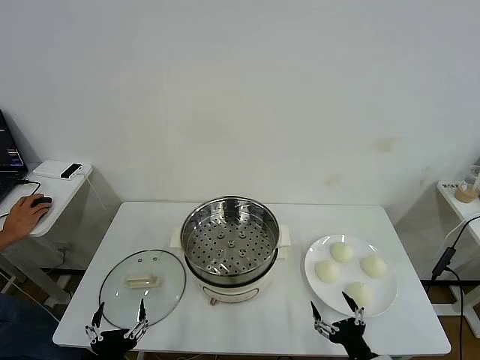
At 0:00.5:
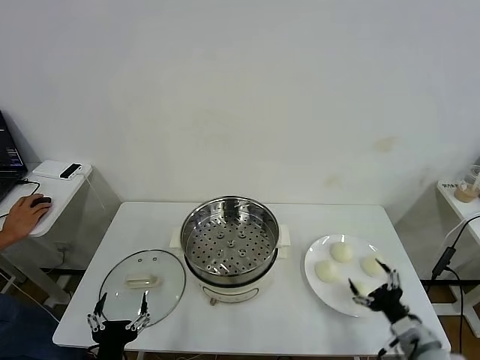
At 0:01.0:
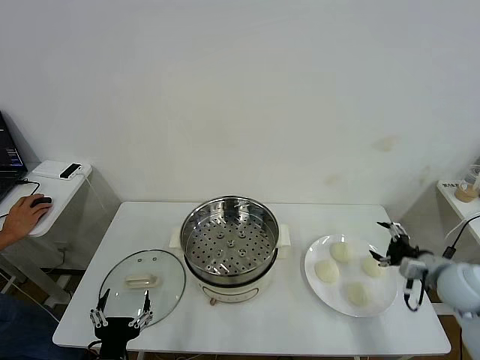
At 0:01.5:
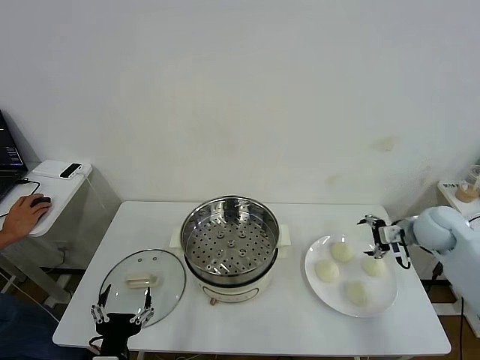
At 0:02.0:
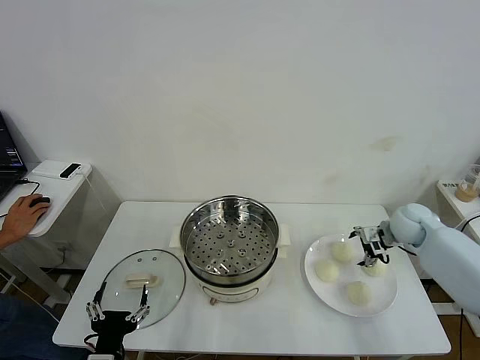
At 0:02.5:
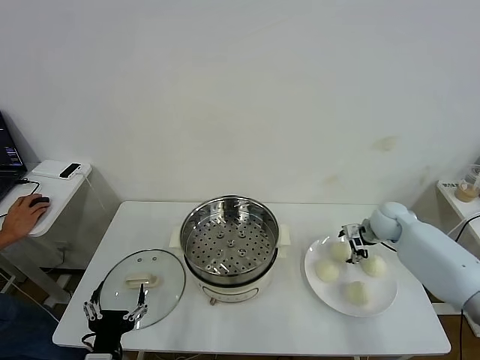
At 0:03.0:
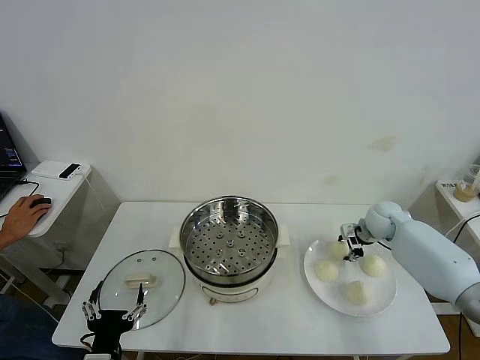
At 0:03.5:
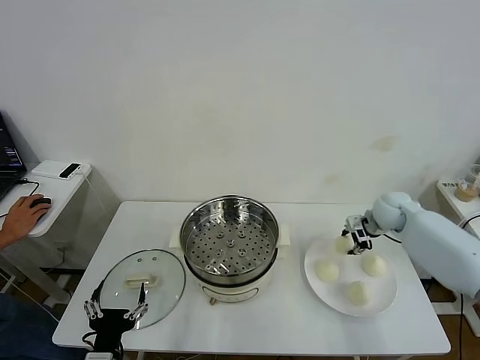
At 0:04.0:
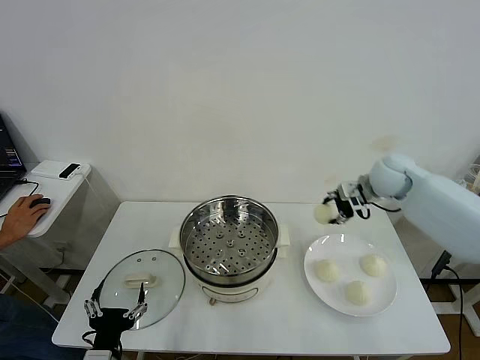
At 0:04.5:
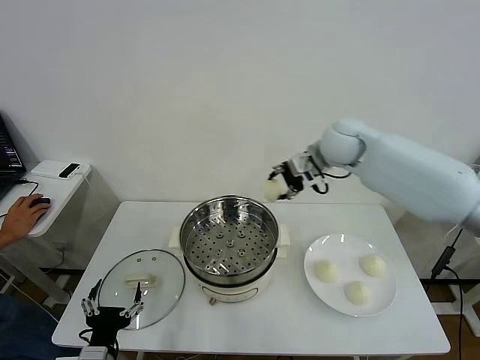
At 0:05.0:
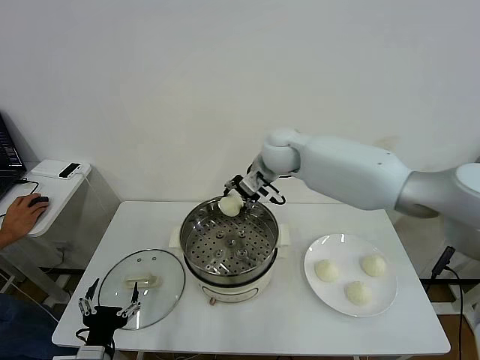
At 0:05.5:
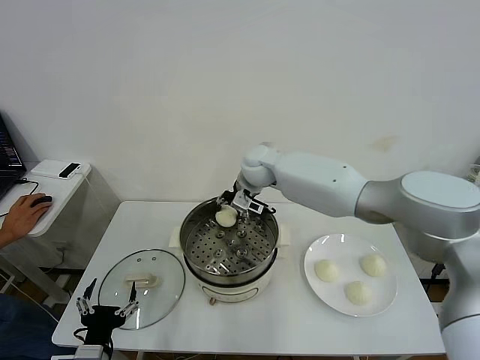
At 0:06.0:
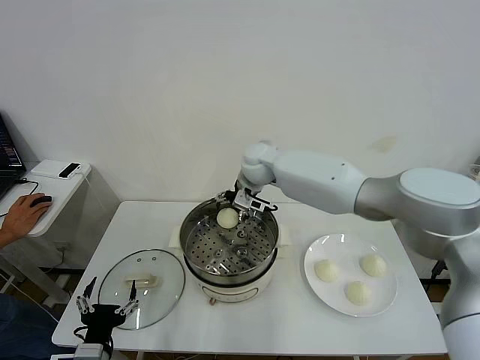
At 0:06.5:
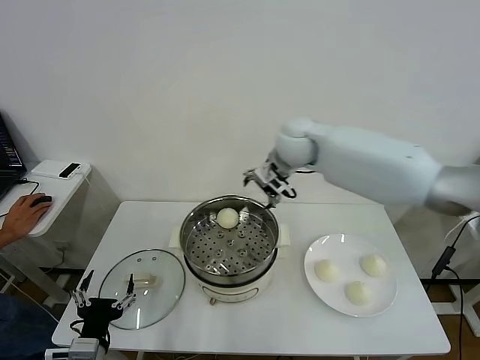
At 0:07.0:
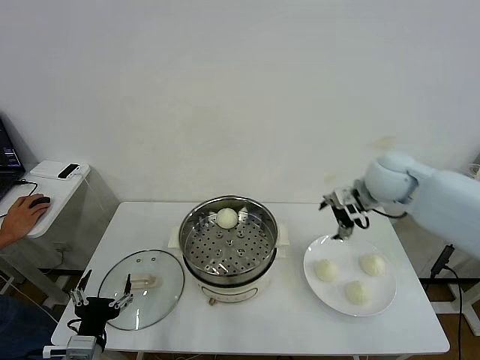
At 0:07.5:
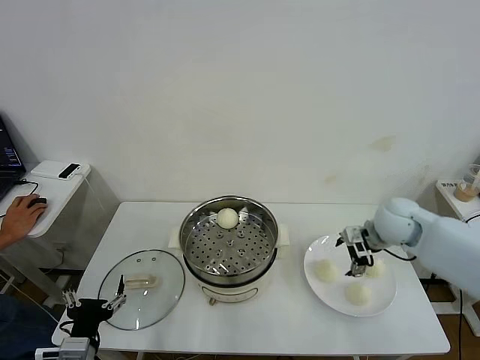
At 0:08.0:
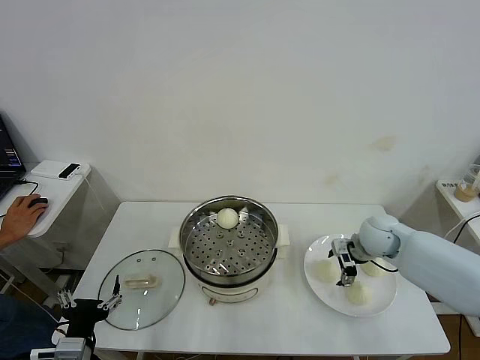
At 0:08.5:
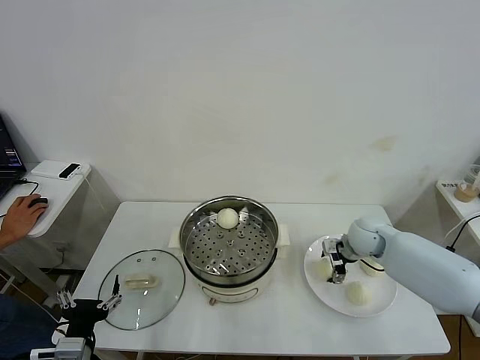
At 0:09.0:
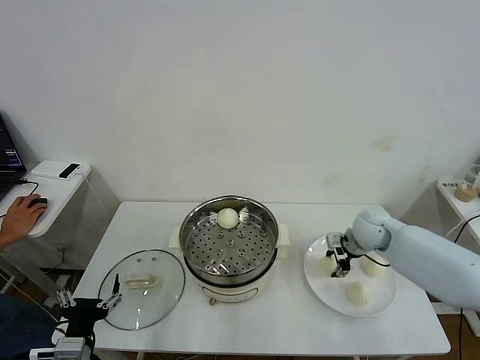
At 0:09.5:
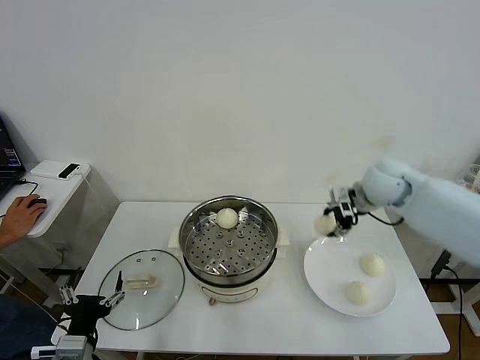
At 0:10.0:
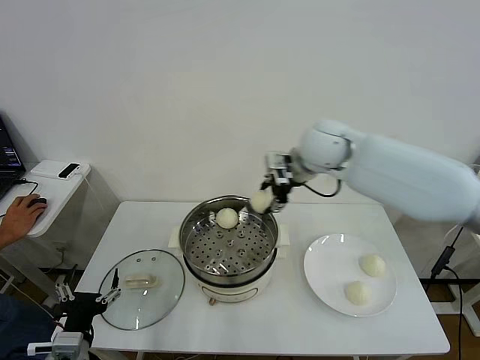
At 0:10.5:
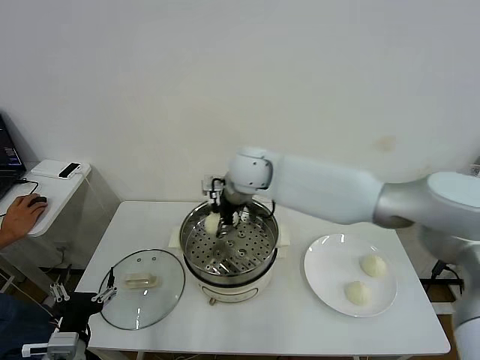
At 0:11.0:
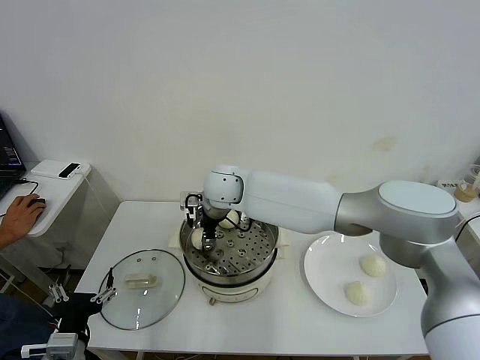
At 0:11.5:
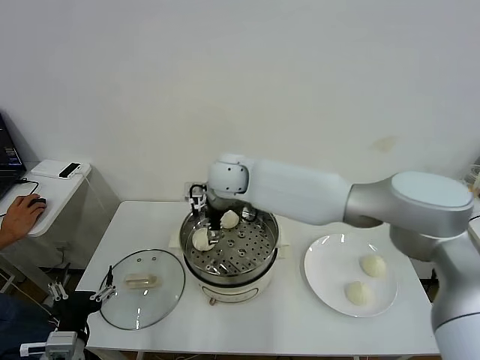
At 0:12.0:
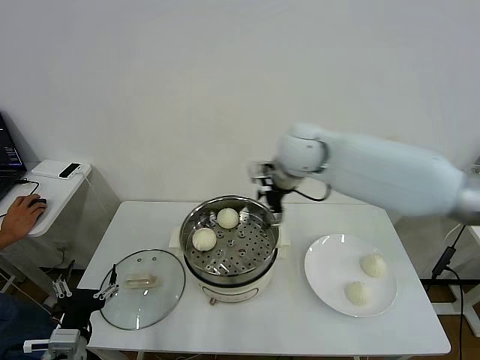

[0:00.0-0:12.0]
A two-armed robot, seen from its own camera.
Task of the whole recording: take steamed baozi put them in steamer then cover it.
Step, 0:00.0 to 0:03.0: Grasp the baozi in the plate with right gripper.
Step, 0:03.5 to 0:06.0: Place the baozi on the steamer with right gripper.
Step, 0:06.5 to 0:08.5: Grasp the baozi in the plate with right gripper.
Step, 0:09.0 to 0:11.0: Place the baozi on the steamer with right gripper.
0:02.0 to 0:04.0: The right gripper heads upward and to the left, covering approximately 20 cm, and closes up.
0:04.0 to 0:06.0: The right gripper is displaced to the left by roughly 25 cm, and opens its fingers.
0:06.0 to 0:08.0: The right gripper travels to the right, downward and backward by some 35 cm.
0:08.0 to 0:10.0: The right gripper travels upward and to the left by approximately 30 cm, and closes.
0:10.0 to 0:12.0: The right gripper moves some 15 cm to the left and comes back, and opens.

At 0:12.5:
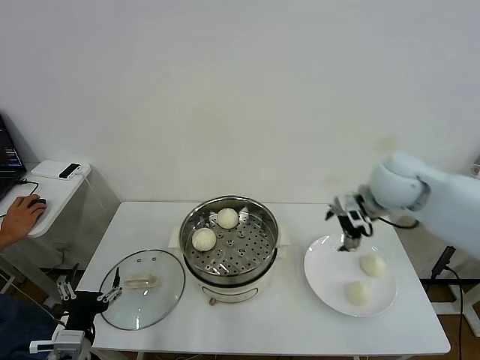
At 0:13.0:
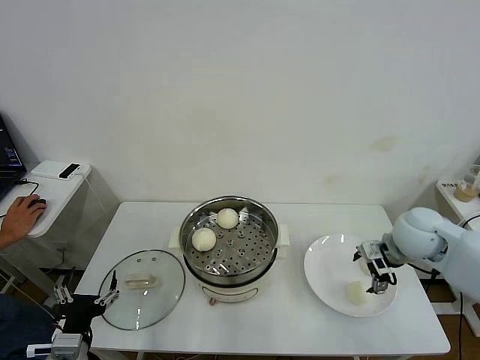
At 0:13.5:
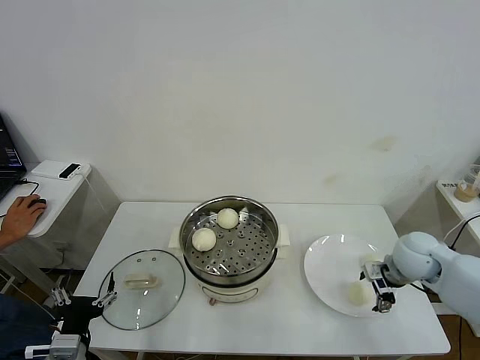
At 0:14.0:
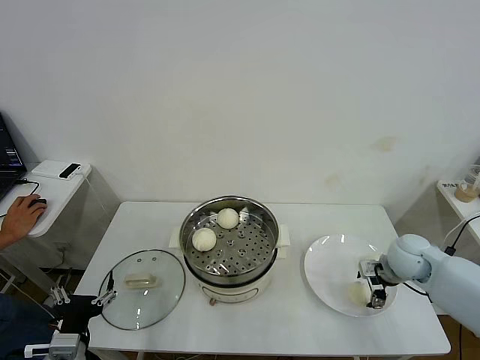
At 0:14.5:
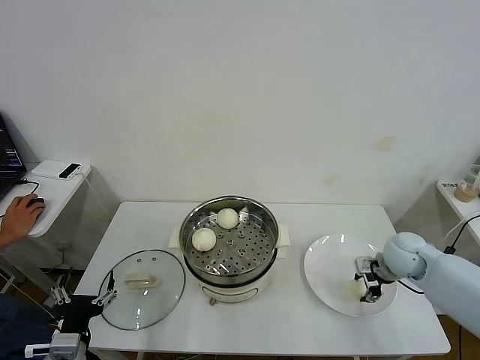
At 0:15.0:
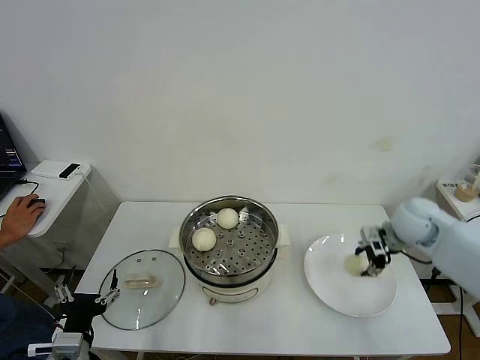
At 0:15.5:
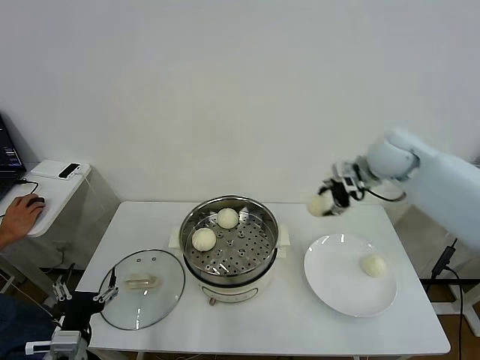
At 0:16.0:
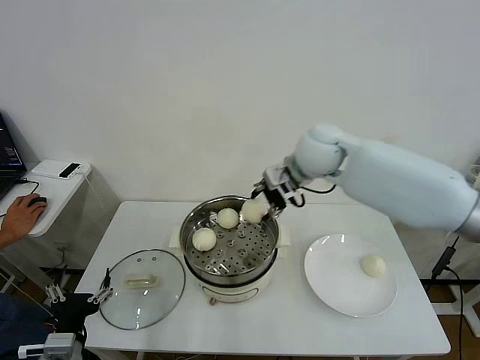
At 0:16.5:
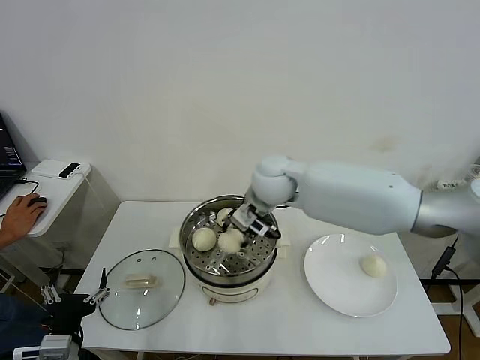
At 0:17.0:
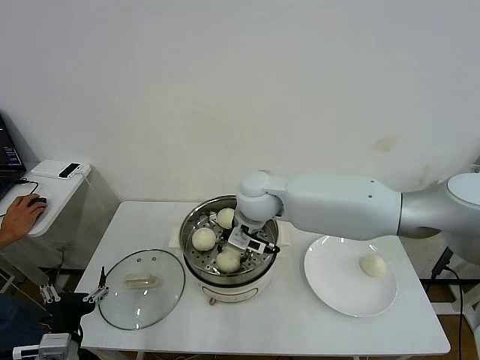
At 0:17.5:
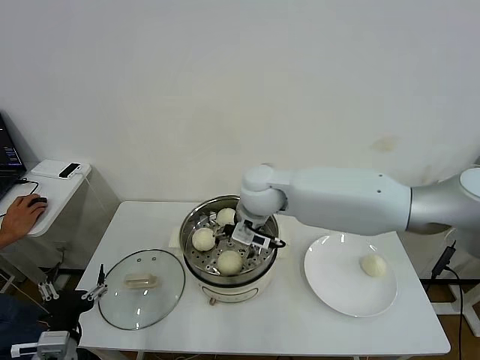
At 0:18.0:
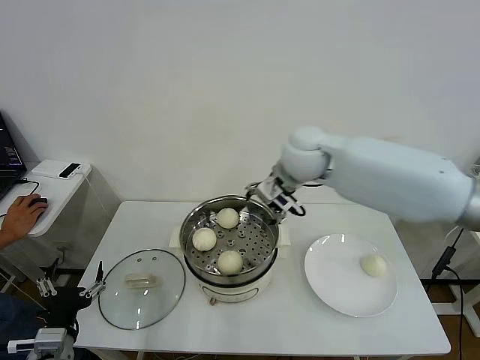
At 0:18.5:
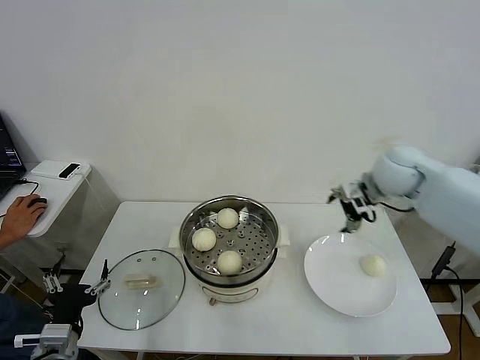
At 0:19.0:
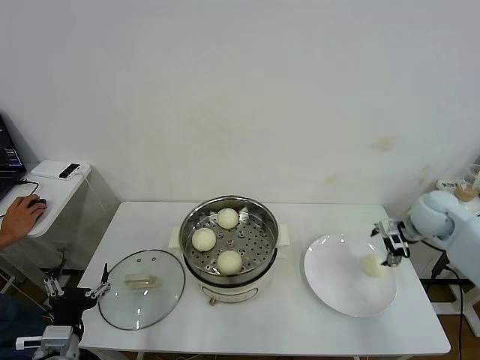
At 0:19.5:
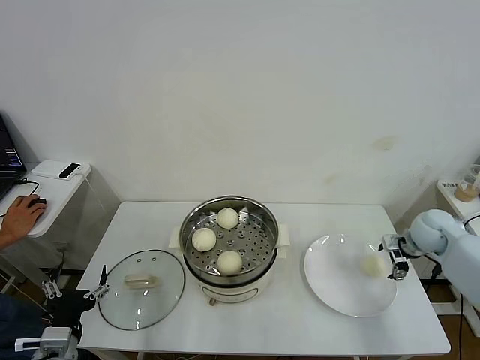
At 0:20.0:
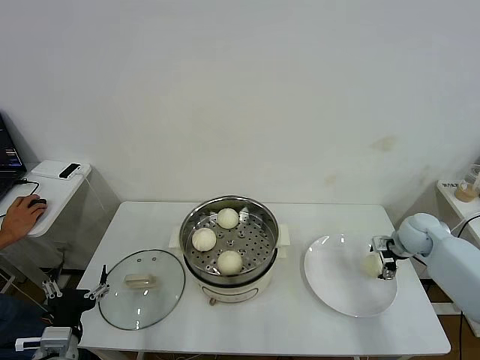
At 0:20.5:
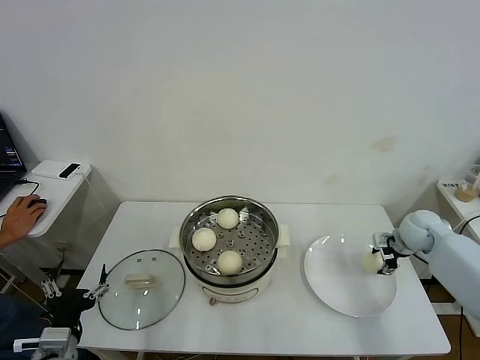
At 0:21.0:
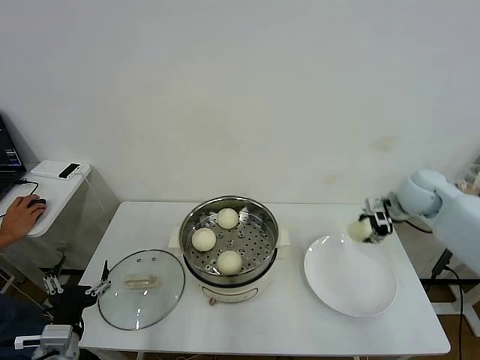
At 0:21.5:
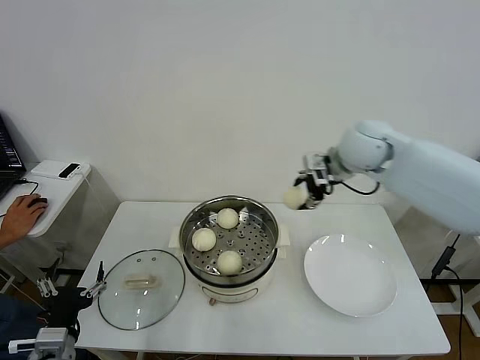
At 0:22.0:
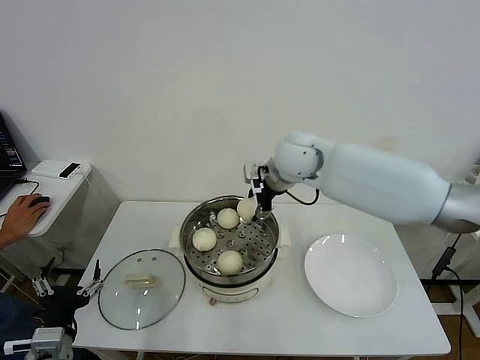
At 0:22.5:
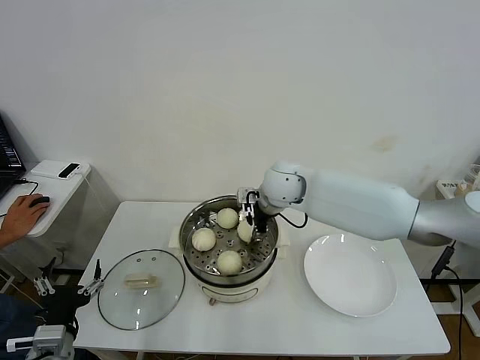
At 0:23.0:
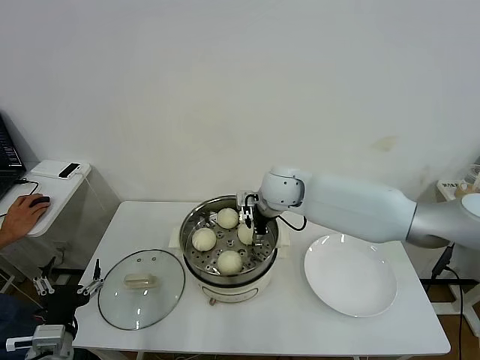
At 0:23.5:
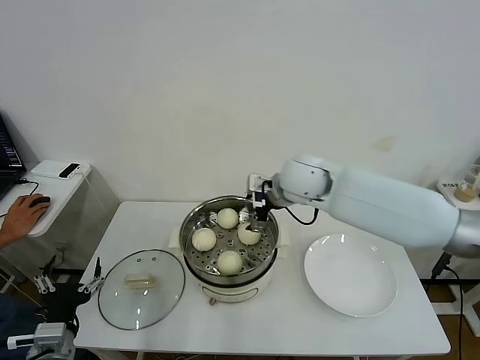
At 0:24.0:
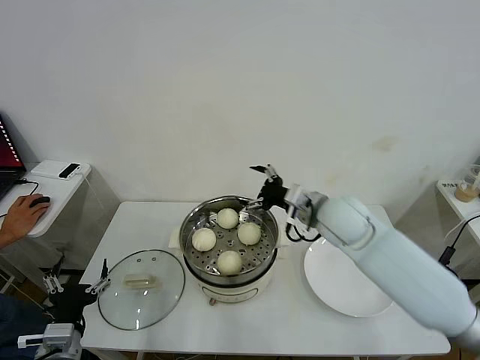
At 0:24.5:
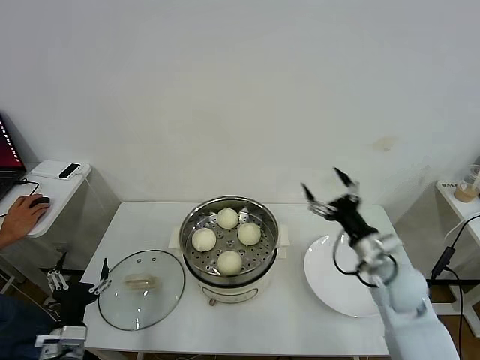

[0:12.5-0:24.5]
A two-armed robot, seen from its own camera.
Task of the whole recording: take steamed baozi put them in steamer then cover it.
Step, 0:12.5 to 0:14.5: Grasp the baozi in the plate with right gripper.
Step, 0:15.0 to 0:17.5: Place the baozi on the steamer with right gripper.
Step, 0:18.0 to 0:20.5: Grasp the baozi in the plate with right gripper.
Step, 0:21.0 to 0:23.0: Place the baozi on the steamer with right gripper.
0:12.5 to 0:14.5: The right gripper moves downward and to the right, approximately 20 cm, and closes up.
0:14.5 to 0:16.5: The right gripper heads to the left and upward, covering some 35 cm.
0:16.5 to 0:18.5: The right gripper goes some 25 cm to the right, and opens up.
0:18.5 to 0:20.5: The right gripper is displaced downward and to the right by some 20 cm, and closes its fingers.
0:20.5 to 0:22.5: The right gripper heads to the left, covering some 35 cm.
0:22.5 to 0:24.5: The right gripper travels to the right, backward and downward by roughly 30 cm, and opens its fingers.

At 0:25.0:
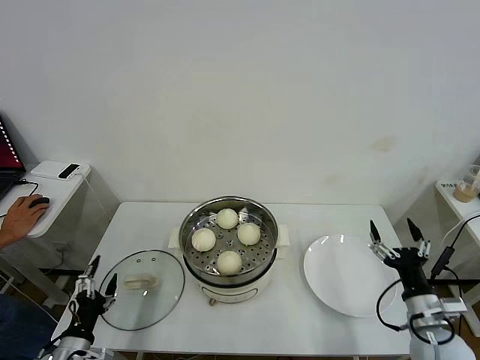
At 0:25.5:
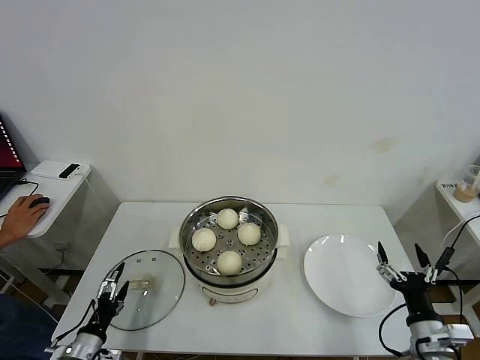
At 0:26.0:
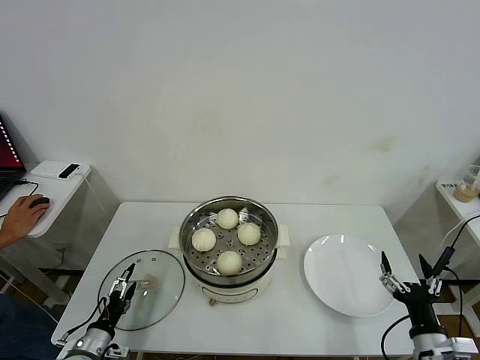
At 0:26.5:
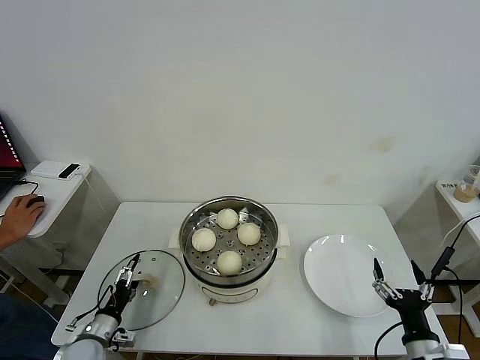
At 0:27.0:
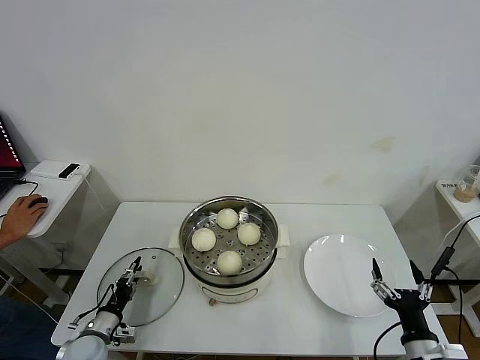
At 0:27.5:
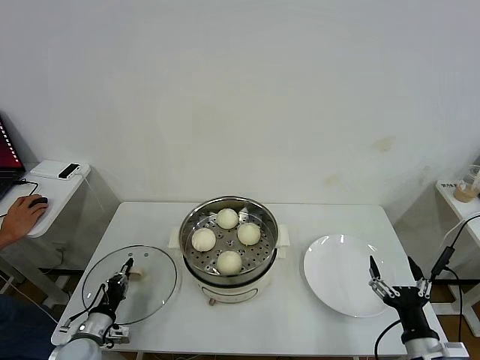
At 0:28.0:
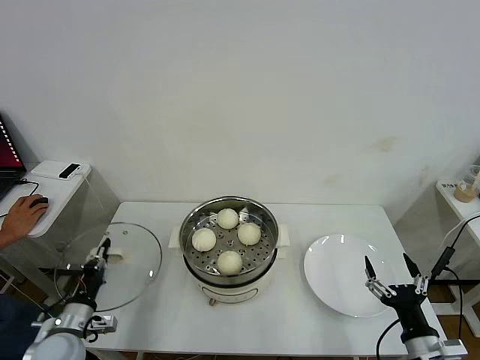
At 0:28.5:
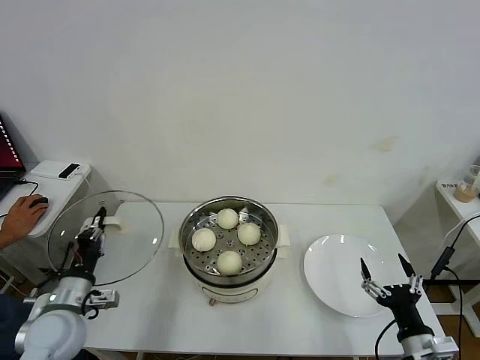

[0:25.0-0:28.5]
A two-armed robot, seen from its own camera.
Task of the whole recording: take steamed baozi put them in steamer then cover it.
Step, 0:25.0 to 0:27.5: Grasp the pot lid with left gripper.
0:25.0 to 0:27.0: The left gripper travels forward and downward by roughly 10 cm, and closes up, while the right gripper goes some 10 cm backward.
0:27.0 to 0:28.5: The left gripper travels upward by approximately 20 cm, and closes up.
